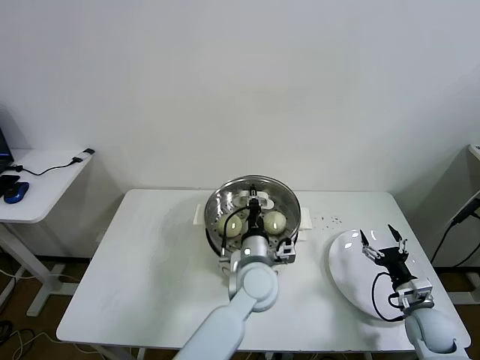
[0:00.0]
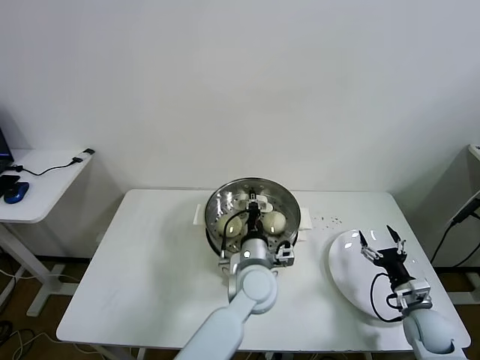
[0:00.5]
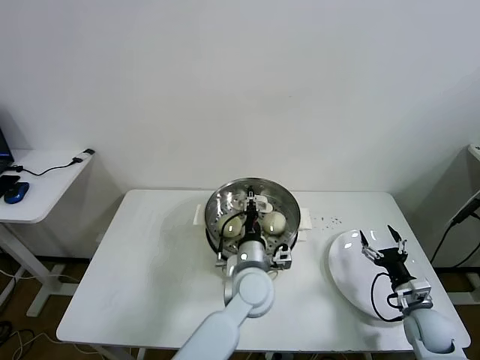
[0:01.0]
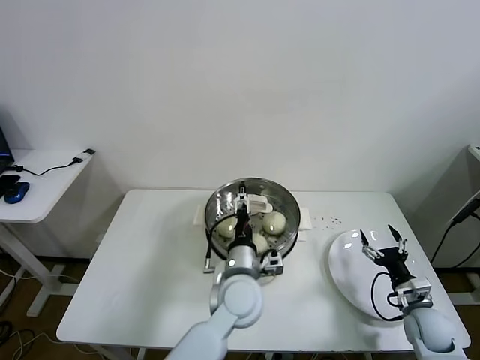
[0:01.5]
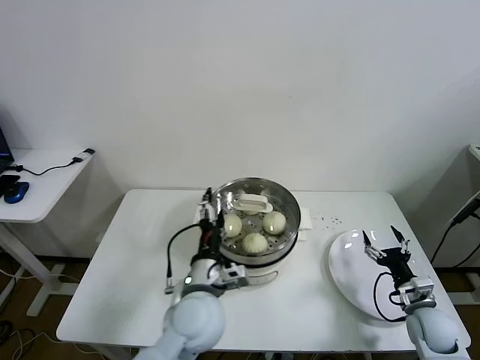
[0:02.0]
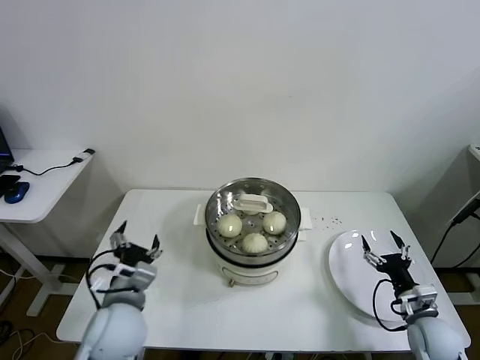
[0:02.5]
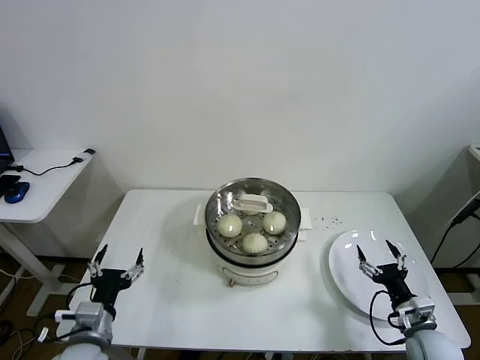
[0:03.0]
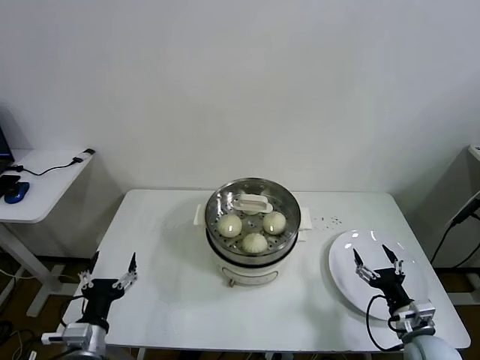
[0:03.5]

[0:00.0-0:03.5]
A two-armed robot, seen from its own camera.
Task of the whole recording: take steamed baozi put them in steamer then cover it.
0:00.0 to 0:02.0: The left gripper heads to the left and backward, covering about 10 cm, and opens its fingers.
0:02.0 to 0:03.5: The left gripper goes about 25 cm to the left and backward. The right gripper is displaced backward by roughly 5 cm.
